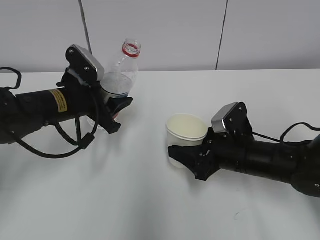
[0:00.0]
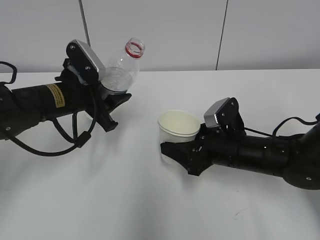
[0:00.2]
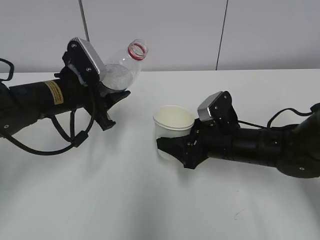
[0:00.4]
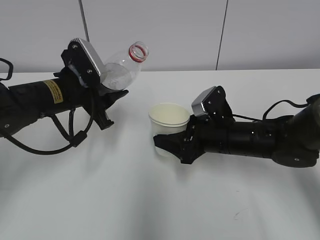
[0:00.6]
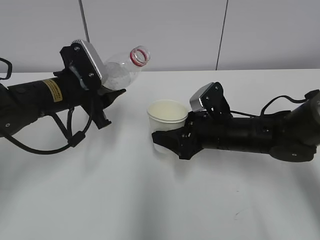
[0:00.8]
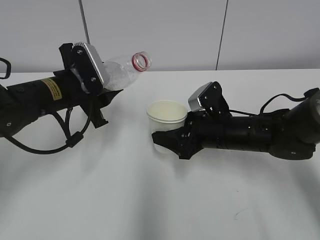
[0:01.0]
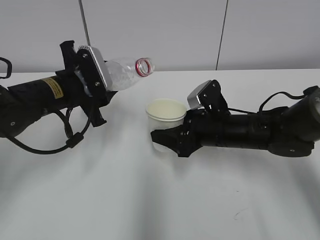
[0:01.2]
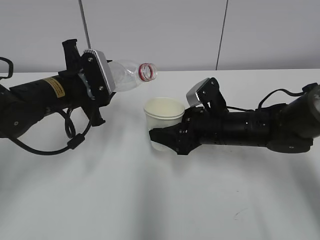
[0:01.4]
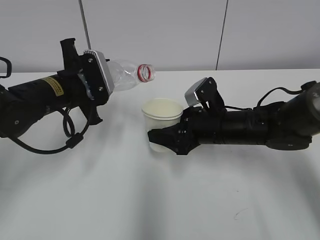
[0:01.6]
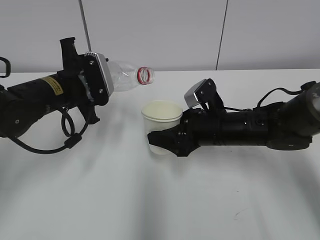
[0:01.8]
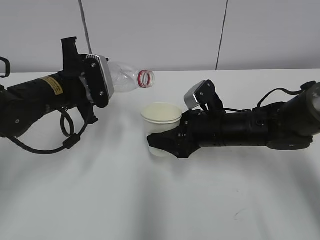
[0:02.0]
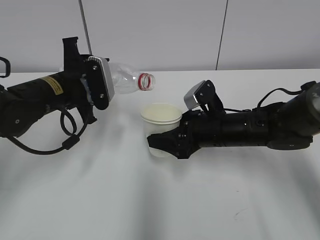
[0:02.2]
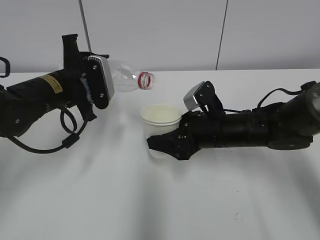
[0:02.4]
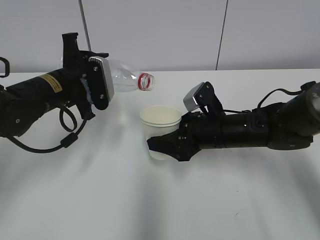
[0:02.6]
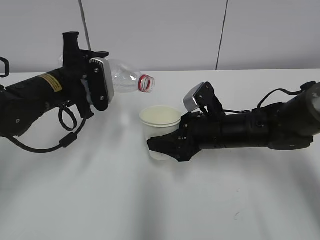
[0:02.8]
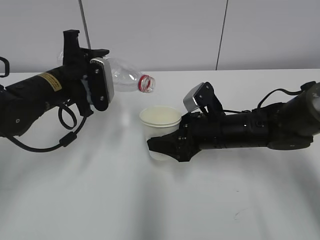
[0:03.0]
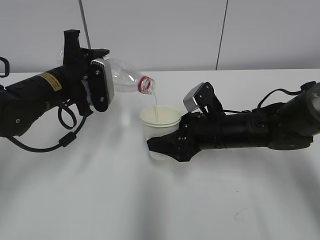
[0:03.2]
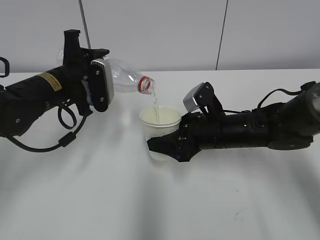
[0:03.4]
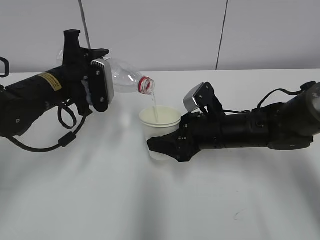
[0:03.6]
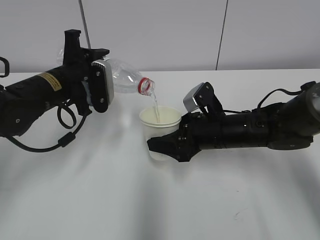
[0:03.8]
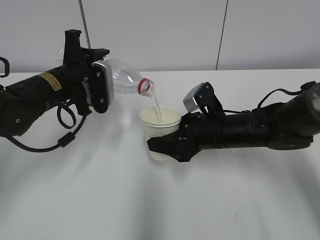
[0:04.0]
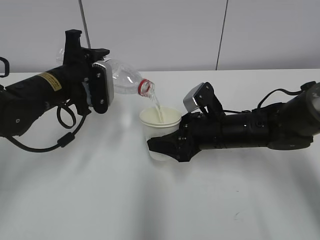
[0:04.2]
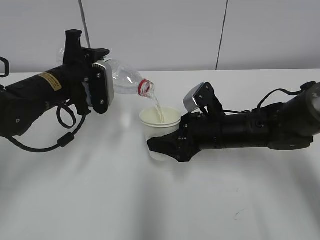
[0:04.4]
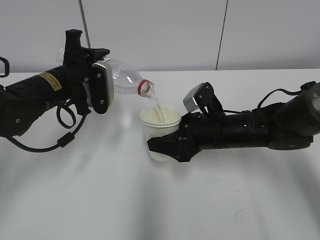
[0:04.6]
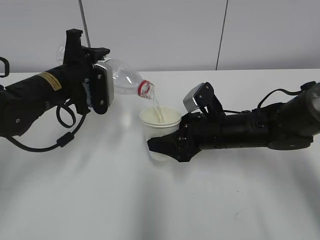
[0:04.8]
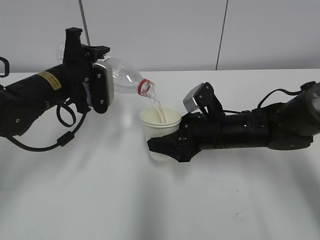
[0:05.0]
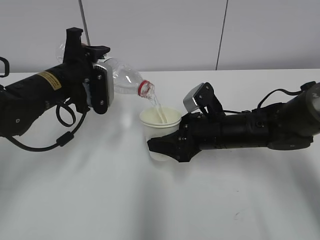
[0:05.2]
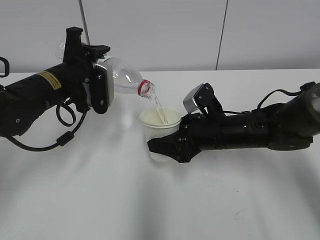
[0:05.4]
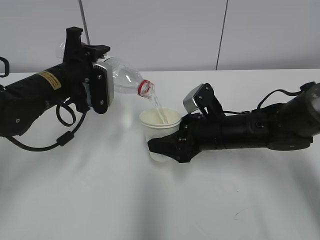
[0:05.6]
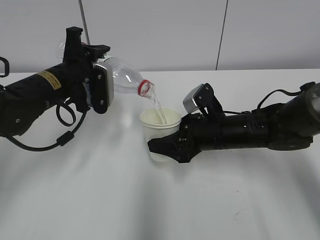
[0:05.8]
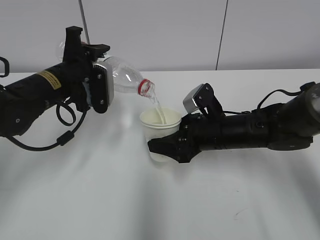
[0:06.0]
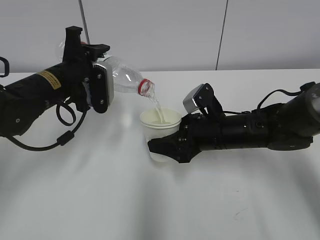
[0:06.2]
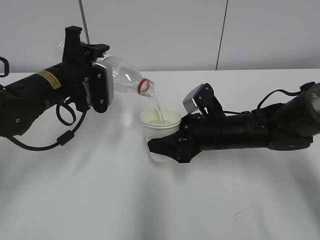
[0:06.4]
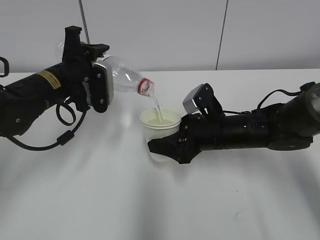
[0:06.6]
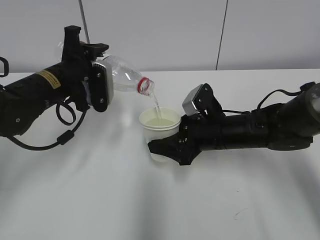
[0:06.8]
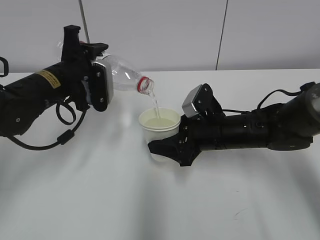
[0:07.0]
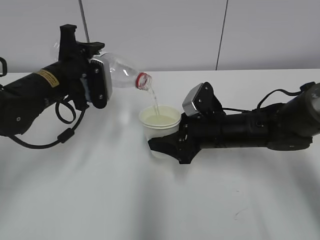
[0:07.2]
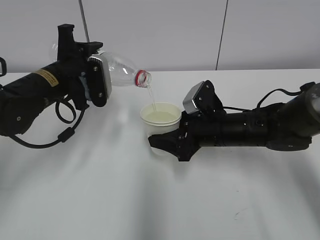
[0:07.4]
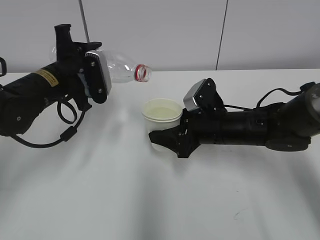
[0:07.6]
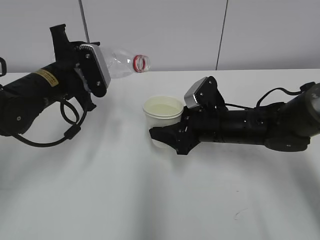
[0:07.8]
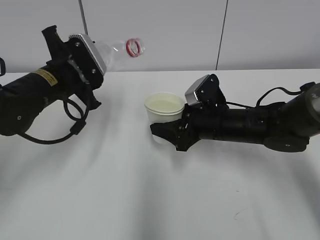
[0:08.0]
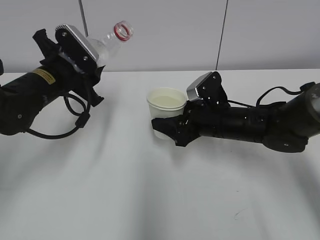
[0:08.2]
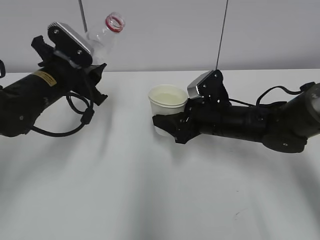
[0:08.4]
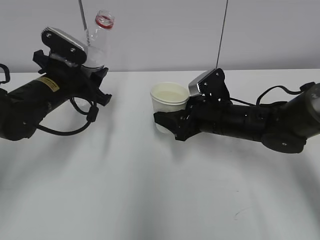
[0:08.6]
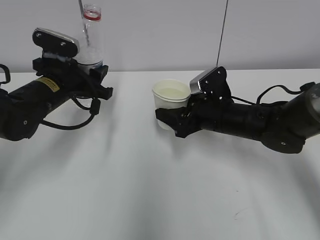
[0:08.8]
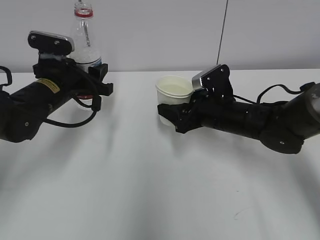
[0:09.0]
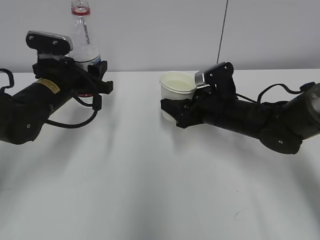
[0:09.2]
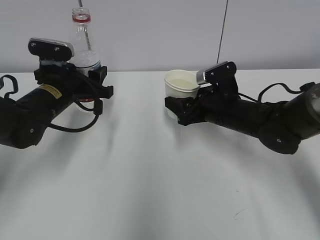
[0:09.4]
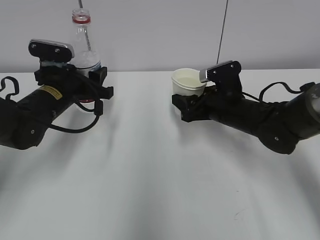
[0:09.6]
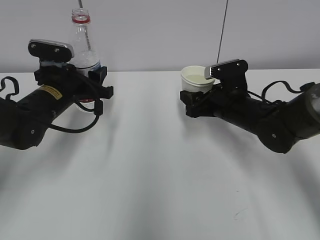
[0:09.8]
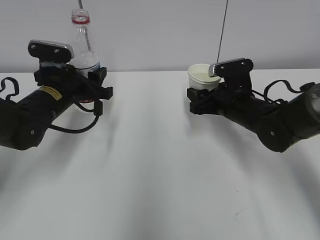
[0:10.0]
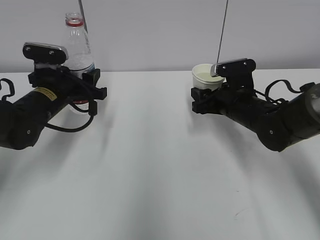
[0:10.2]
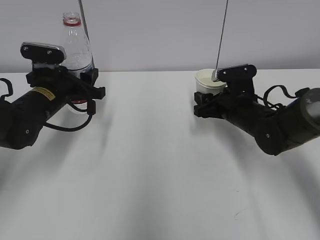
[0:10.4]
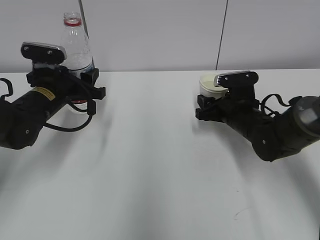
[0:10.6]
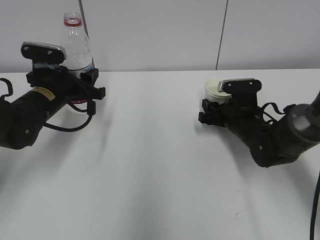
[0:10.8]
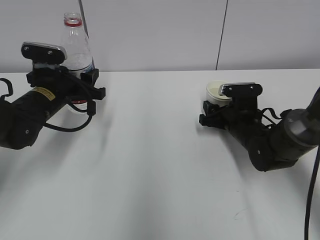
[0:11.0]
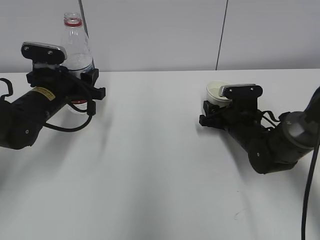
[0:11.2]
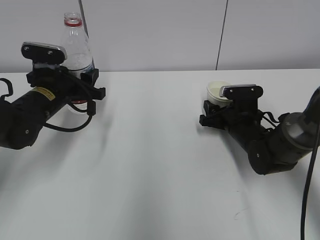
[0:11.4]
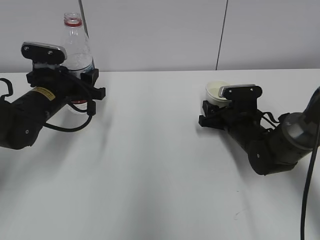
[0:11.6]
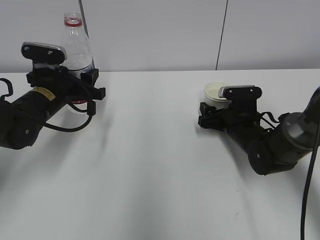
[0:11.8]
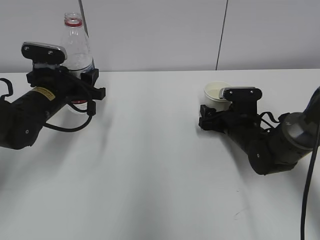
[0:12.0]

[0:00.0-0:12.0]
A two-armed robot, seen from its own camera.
Step, 0:01.0 to 0:04.6: Fill water with the right hand.
Step, 0:01.0 to 0:04.6: Pour water with the left hand.
Step, 0:04.8 to 0:05.6: Collect water with the left hand.
Step, 0:05.8 to 0:08.2: Place the paper cup with the right hand.
Step, 0:08.4 to 0:10.8: Place the water bottle with the left hand.
0:00.0 to 0:01.6: The right gripper shifts by some 5 cm.
0:01.6 to 0:03.0: The grippers stay close to where they were, moving slightly.
0:03.0 to 0:04.4: Neither gripper changes place.
0:04.4 to 0:06.0: Both grippers stay about where they are.
0:06.0 to 0:07.6: The grippers make only small movements.
0:10.4 to 0:12.0: The right gripper is displaced downward by about 5 cm, and opens its fingers.

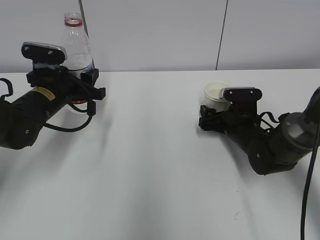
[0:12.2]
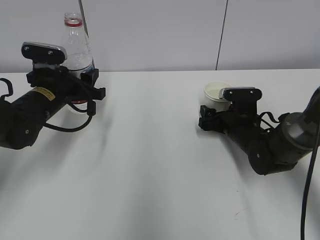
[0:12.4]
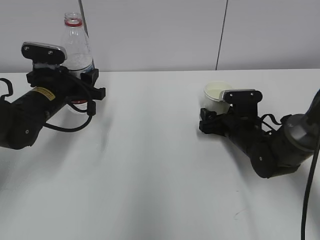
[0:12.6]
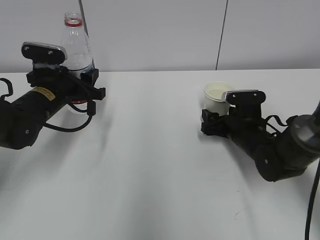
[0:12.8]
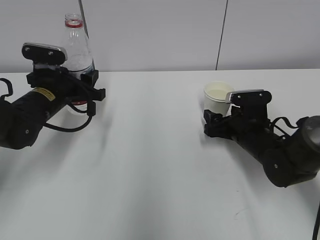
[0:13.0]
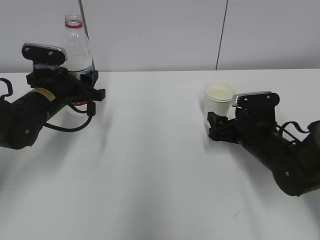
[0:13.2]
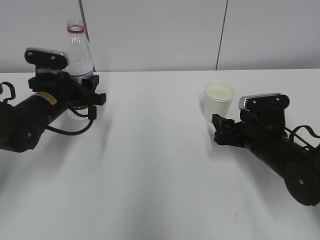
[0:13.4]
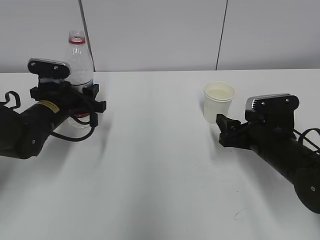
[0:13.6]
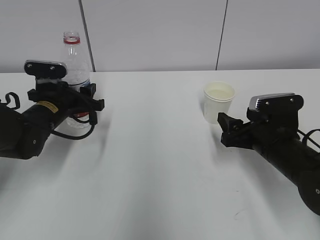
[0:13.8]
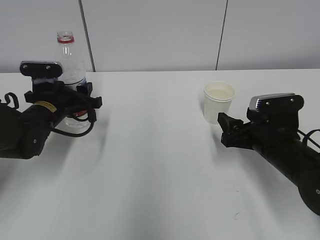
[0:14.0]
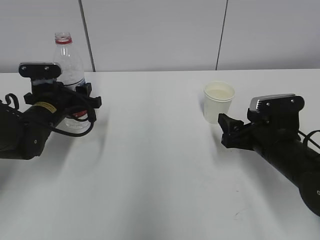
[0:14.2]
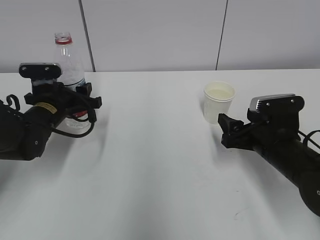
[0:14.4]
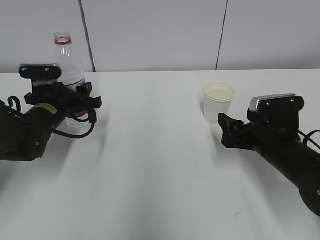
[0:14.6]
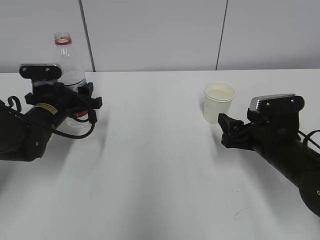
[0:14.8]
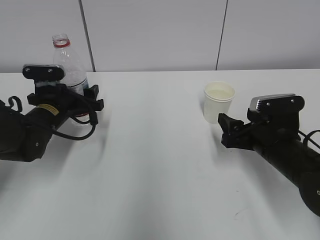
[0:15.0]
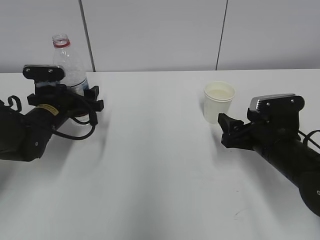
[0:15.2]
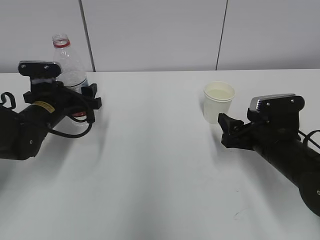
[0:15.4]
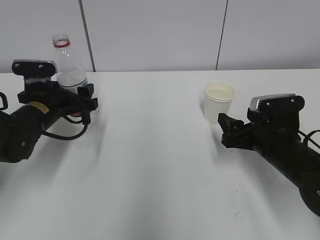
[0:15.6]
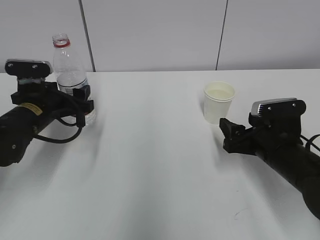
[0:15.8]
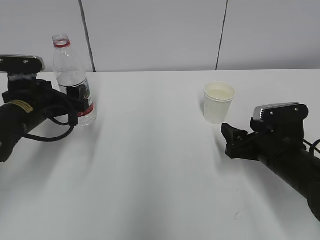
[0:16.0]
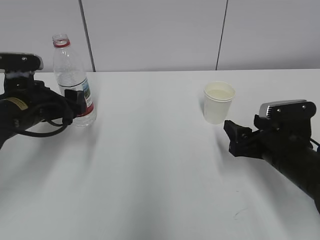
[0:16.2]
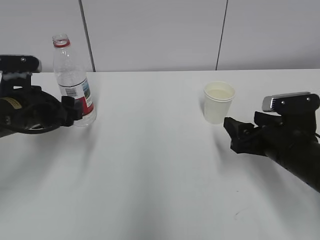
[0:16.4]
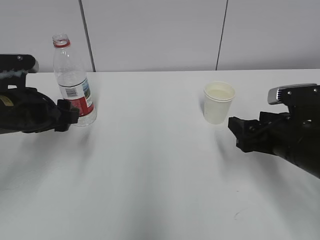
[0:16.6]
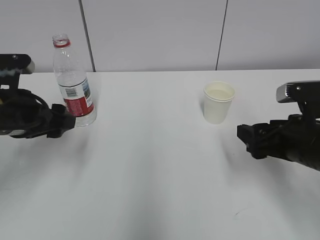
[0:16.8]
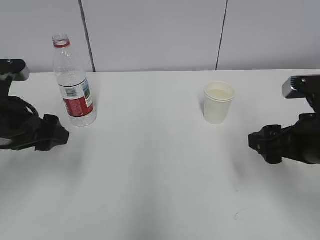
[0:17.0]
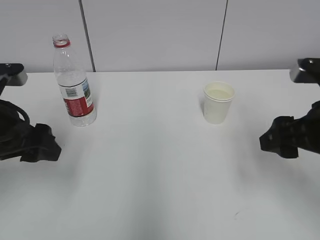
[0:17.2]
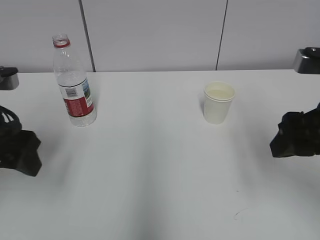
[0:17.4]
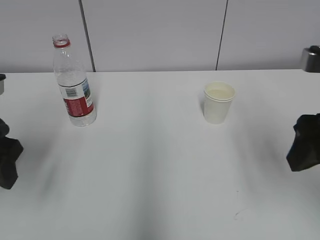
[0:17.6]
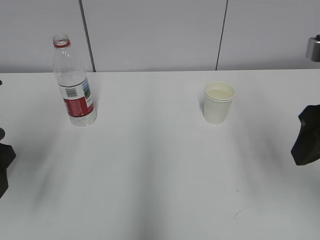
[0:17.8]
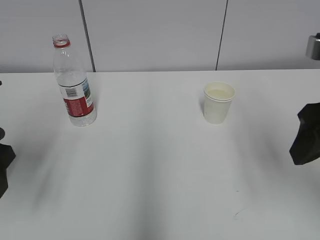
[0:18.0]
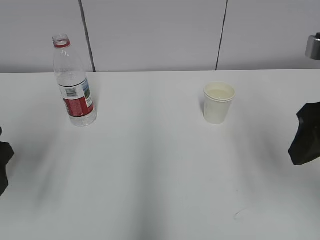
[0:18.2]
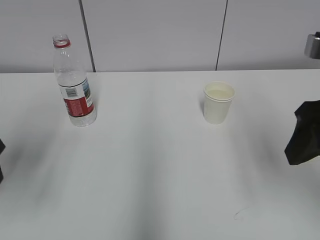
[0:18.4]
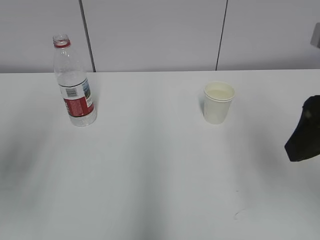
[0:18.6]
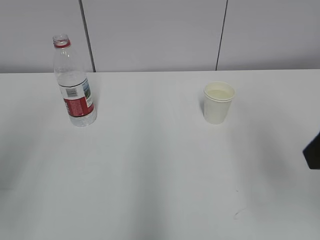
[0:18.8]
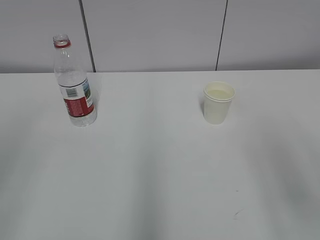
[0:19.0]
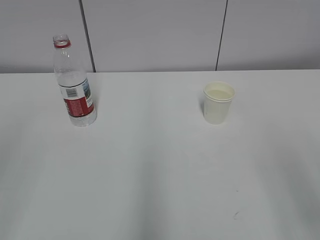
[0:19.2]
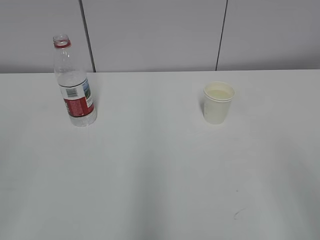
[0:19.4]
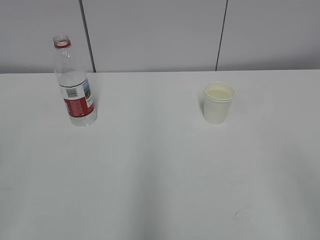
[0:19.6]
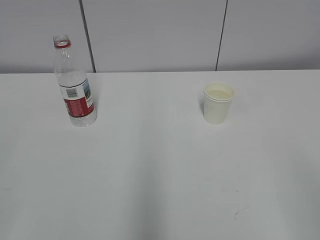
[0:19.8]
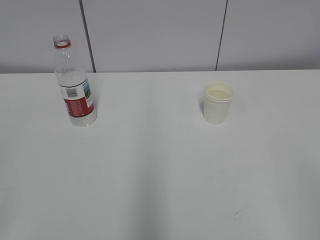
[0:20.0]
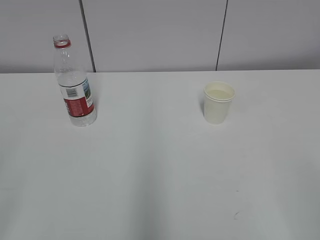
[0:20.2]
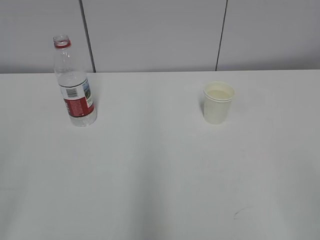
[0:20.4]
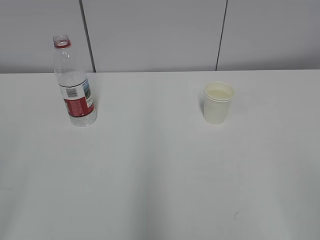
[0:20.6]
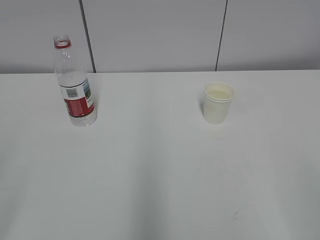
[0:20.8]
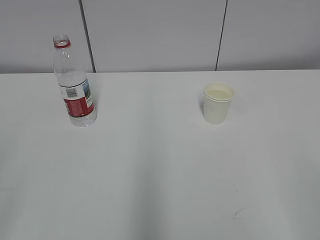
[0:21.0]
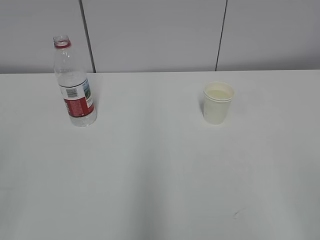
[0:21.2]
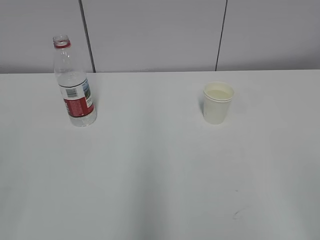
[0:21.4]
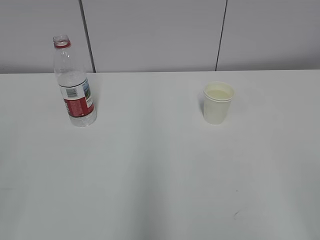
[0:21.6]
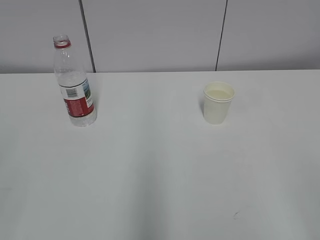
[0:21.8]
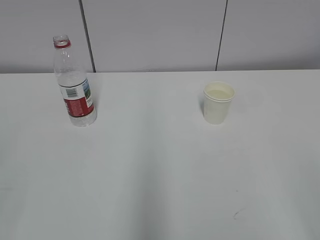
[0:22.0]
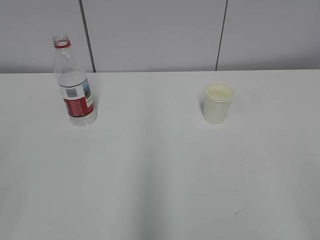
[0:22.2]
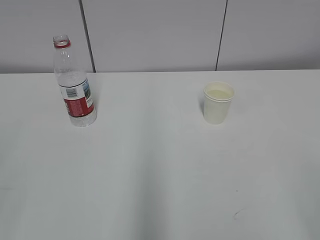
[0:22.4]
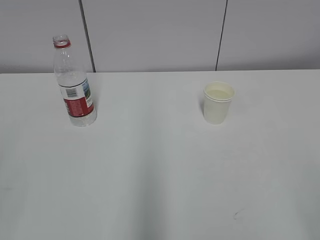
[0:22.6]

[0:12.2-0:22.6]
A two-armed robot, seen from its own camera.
0:12.2 to 0:13.6: The right gripper goes roughly 10 cm backward.
0:13.6 to 0:15.2: The left gripper opens.
0:15.2 to 0:16.6: The right gripper changes place by some 5 cm, while the left gripper heads backward and upward, covering approximately 10 cm.
0:16.6 to 0:18.2: The left gripper heads backward and upward, covering approximately 10 cm; the right gripper is displaced upward by approximately 15 cm.
0:18.2 to 0:19.6: The two grippers go some 20 cm backward.
